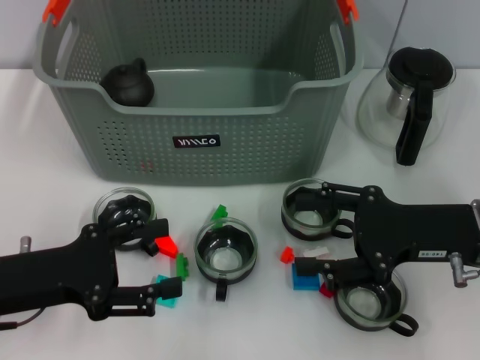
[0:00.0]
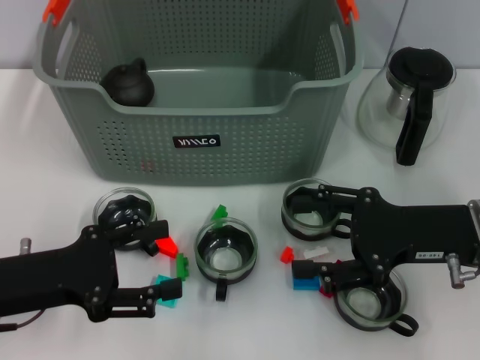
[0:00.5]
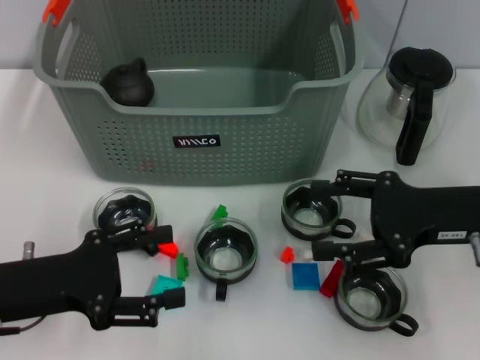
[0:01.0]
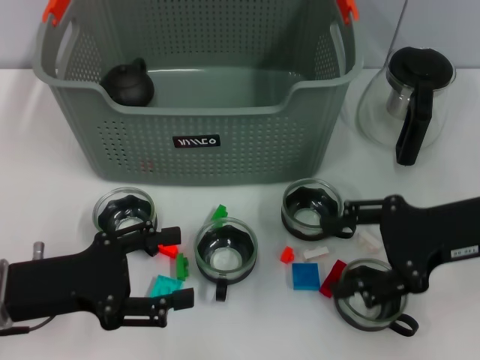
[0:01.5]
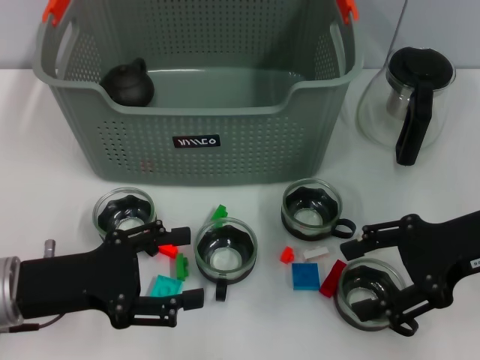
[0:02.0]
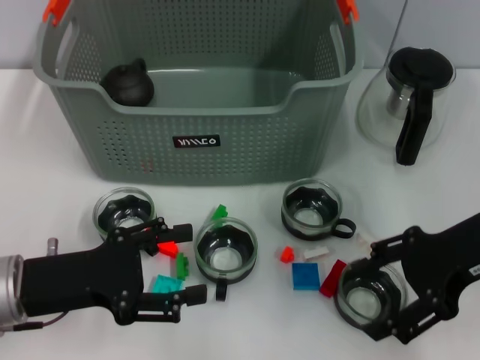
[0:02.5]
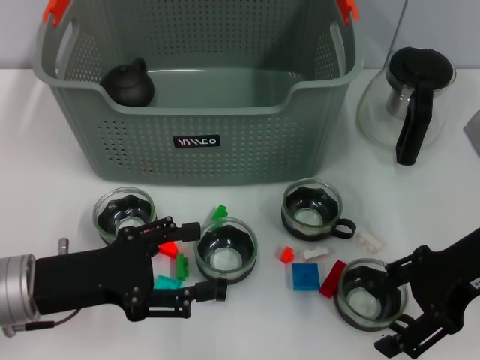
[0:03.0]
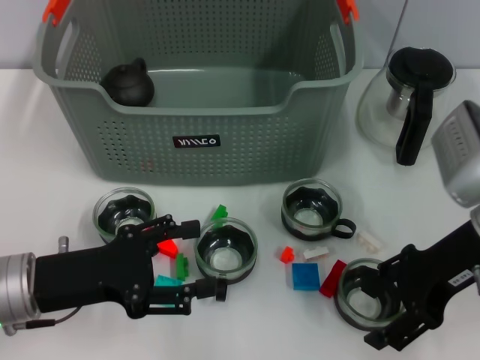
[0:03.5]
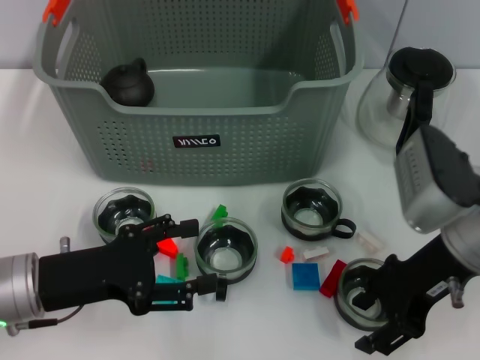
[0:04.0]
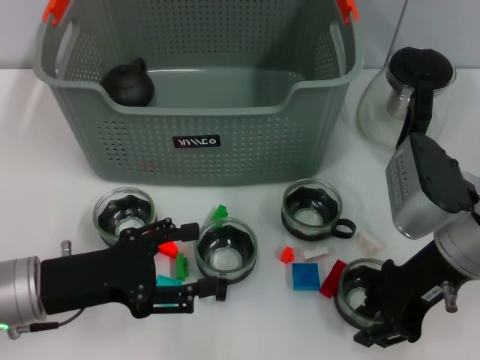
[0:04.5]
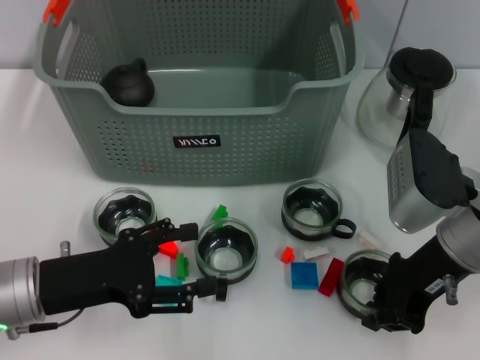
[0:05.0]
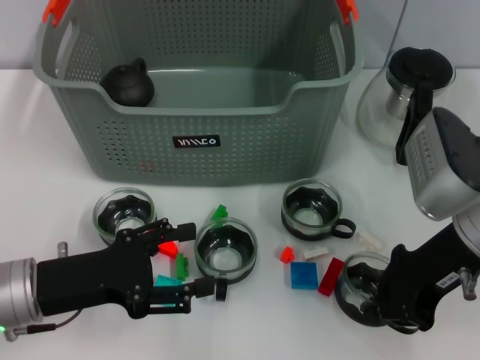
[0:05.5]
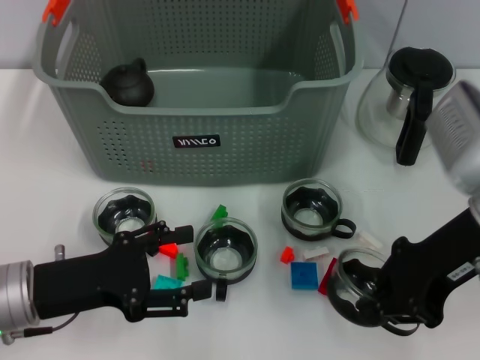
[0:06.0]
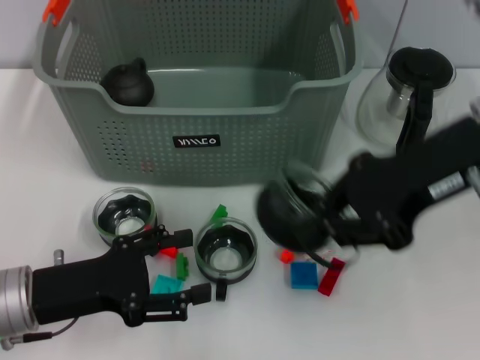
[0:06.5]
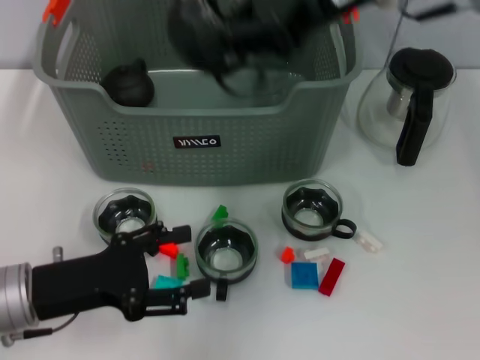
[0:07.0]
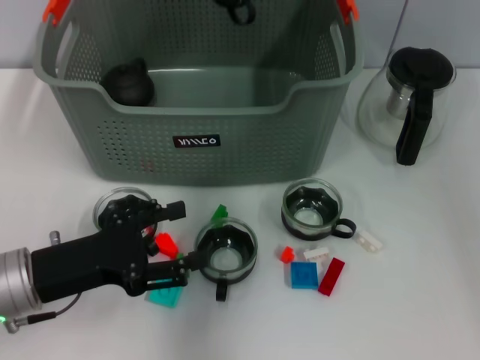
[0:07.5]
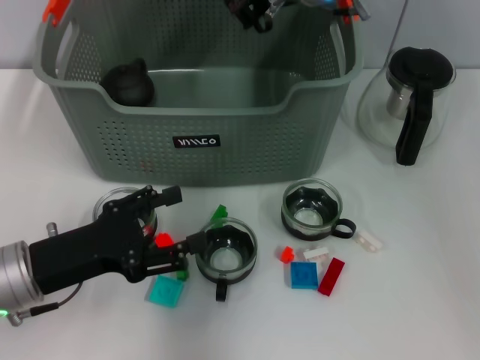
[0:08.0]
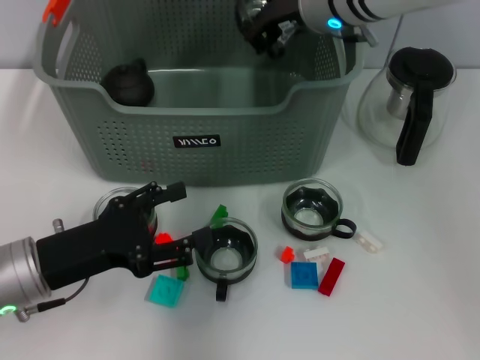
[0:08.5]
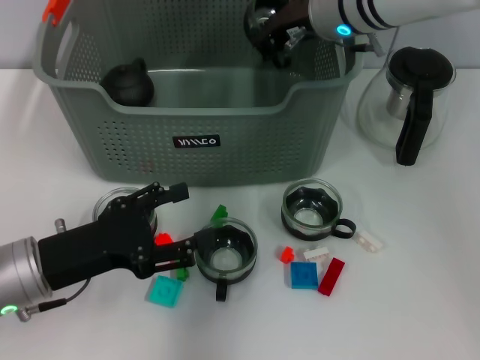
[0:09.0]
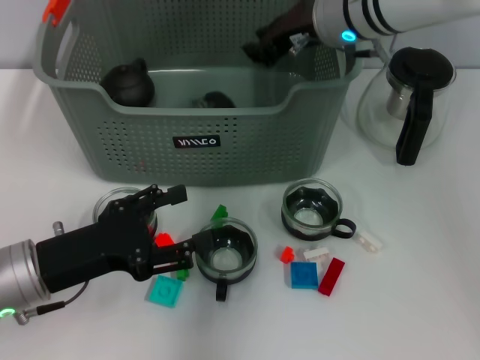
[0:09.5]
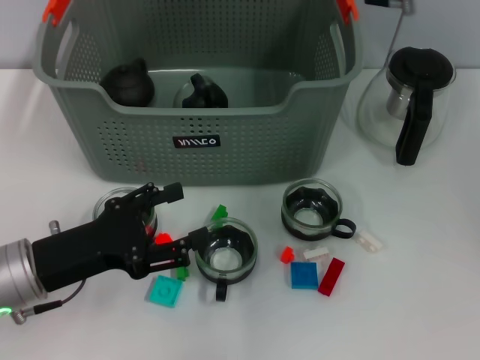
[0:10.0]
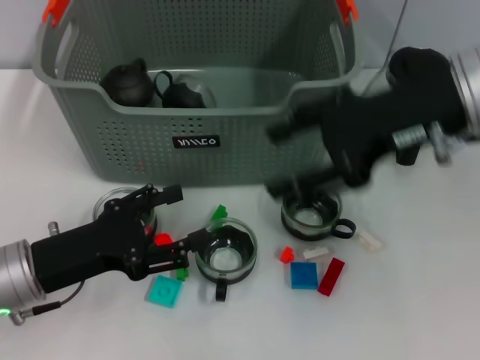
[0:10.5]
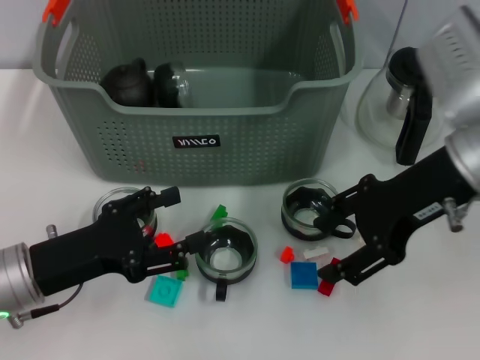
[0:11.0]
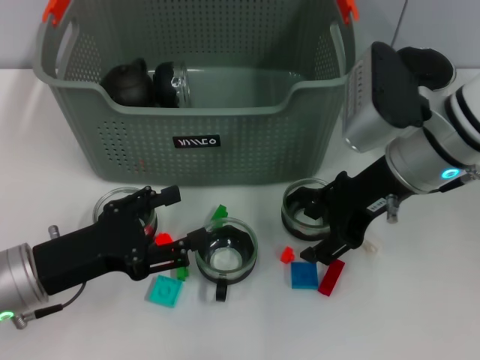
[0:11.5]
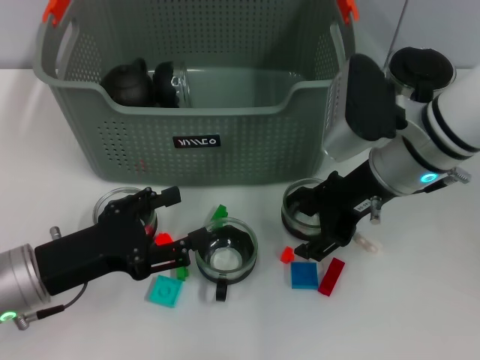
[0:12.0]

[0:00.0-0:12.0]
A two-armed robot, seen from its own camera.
Task of the whole recording: pick up the teacup on the table and place it into the storage bin, pick up the block on the table and place it into the storage bin.
Step, 0:00.0 to 0:04.5: Grasp the cup with right gripper.
Step, 0:05.0 to 0:09.5: Place the cup in the storage box with right gripper.
0:02.0 to 0:04.0: The right gripper travels to the left by some 5 cm.
0:04.0 to 0:06.0: The right gripper closes its fingers.
0:06.0 to 0:08.0: The right gripper moves forward and to the left, approximately 20 cm.
0:08.0 to 0:10.0: The right gripper moves approximately 10 cm, and opens.
0:10.0 to 0:12.0: The right gripper heads downward and backward, covering approximately 15 cm.

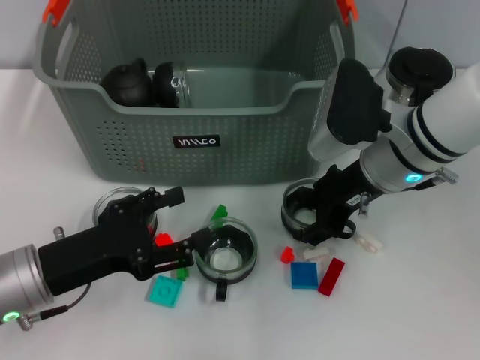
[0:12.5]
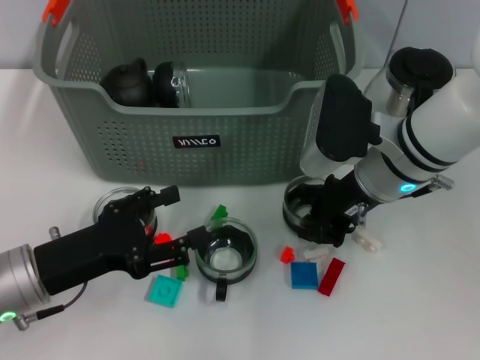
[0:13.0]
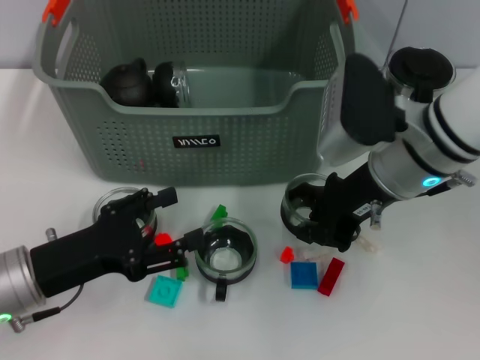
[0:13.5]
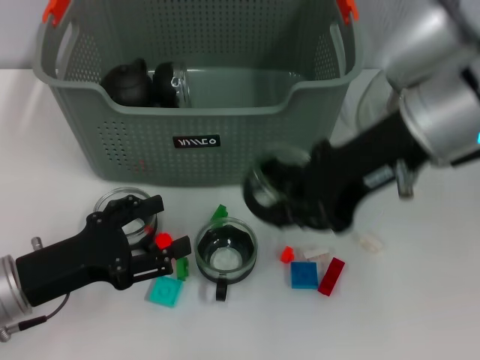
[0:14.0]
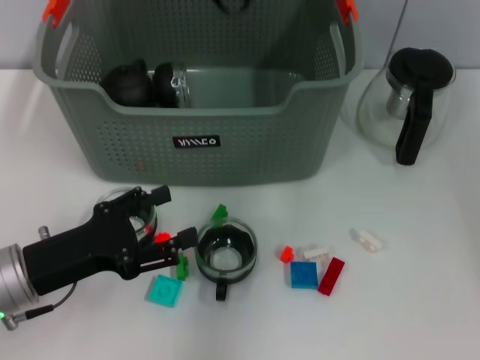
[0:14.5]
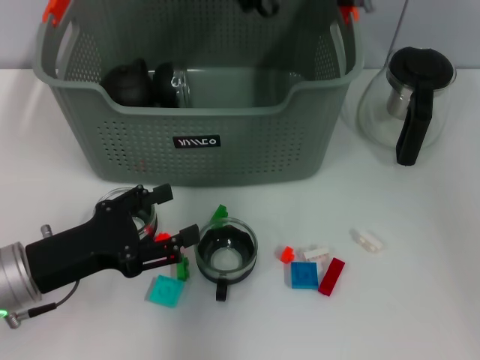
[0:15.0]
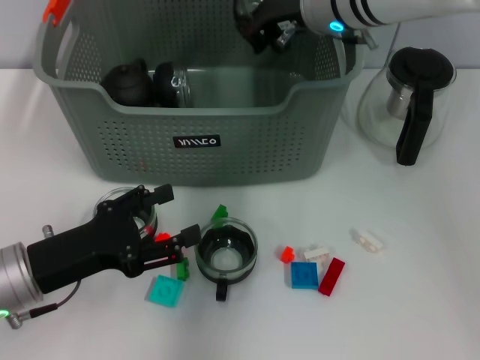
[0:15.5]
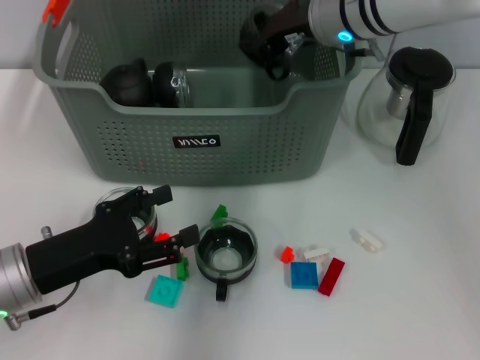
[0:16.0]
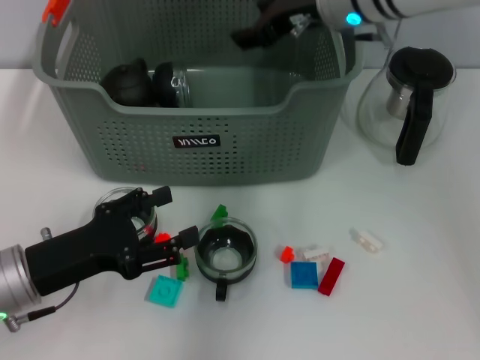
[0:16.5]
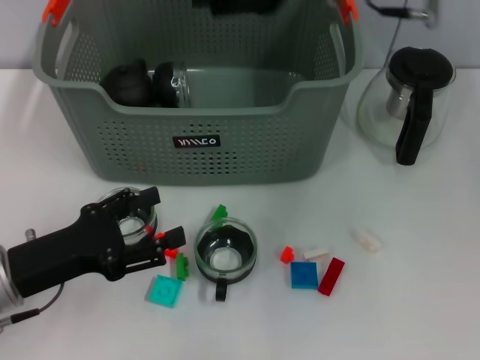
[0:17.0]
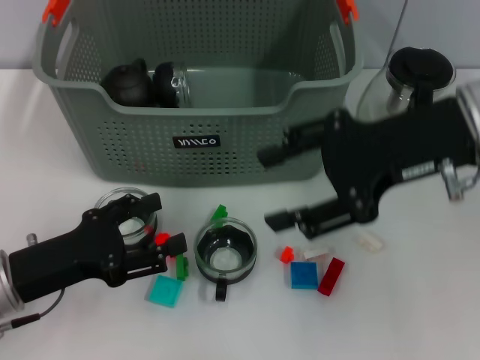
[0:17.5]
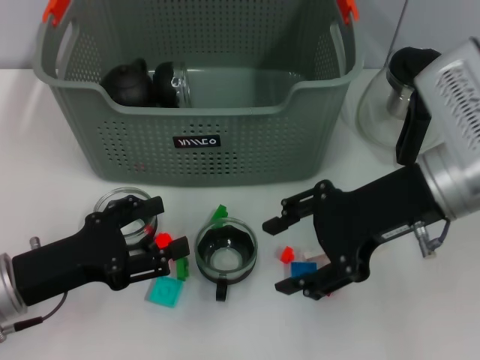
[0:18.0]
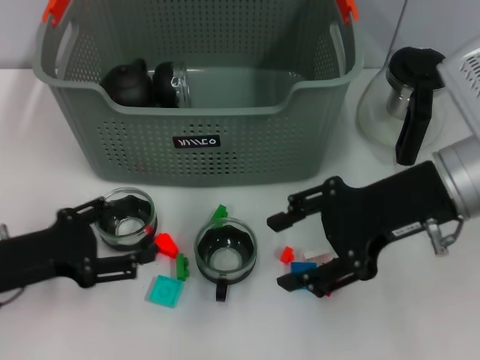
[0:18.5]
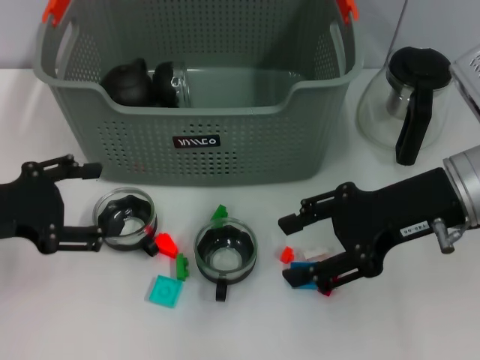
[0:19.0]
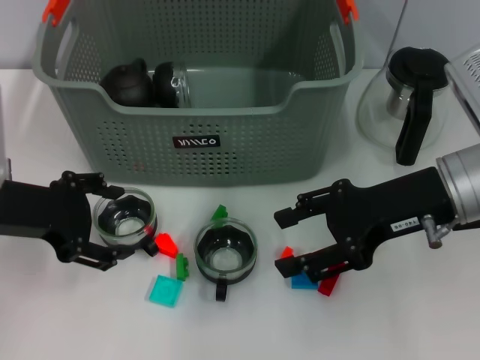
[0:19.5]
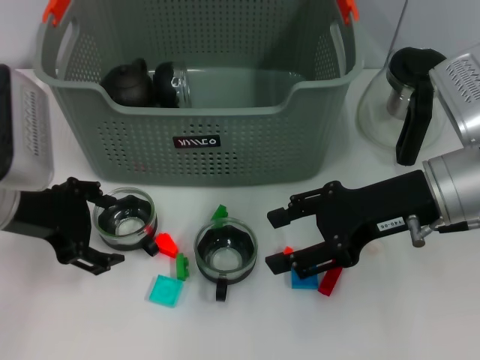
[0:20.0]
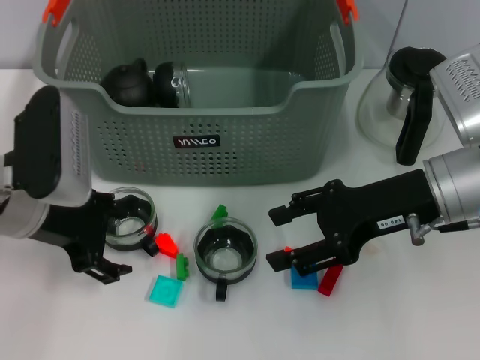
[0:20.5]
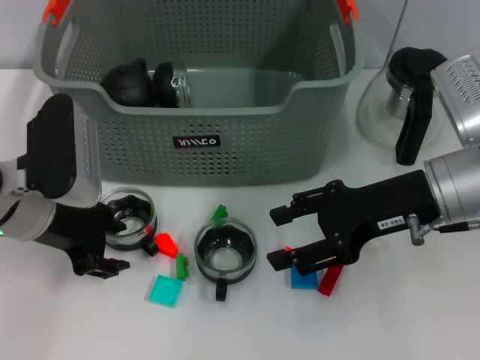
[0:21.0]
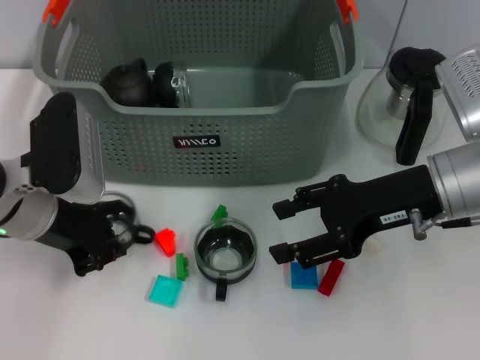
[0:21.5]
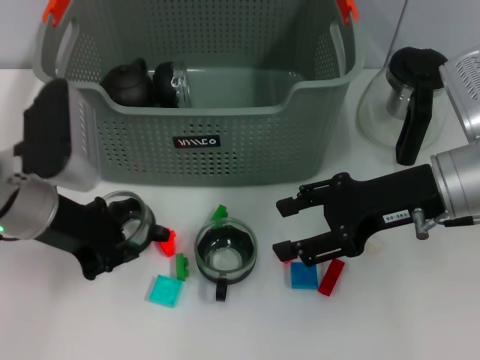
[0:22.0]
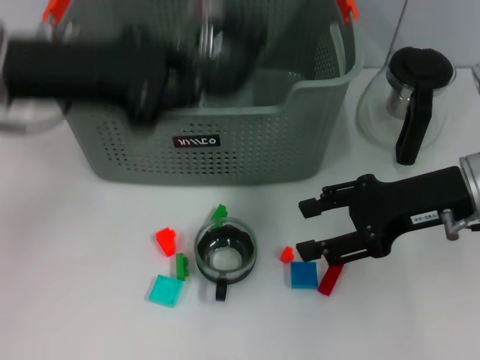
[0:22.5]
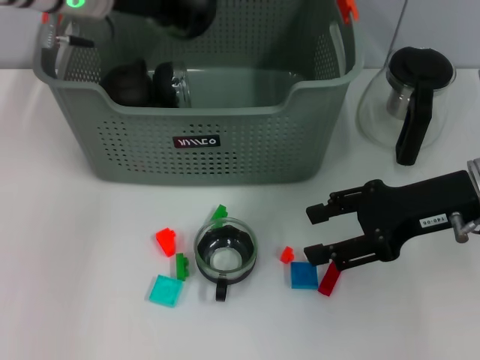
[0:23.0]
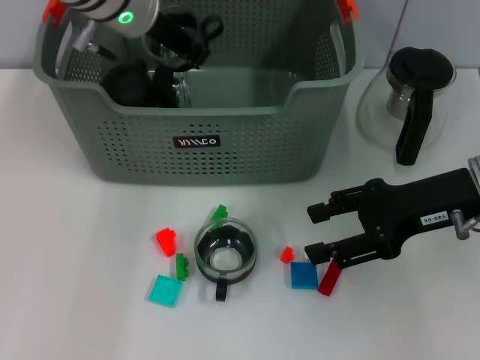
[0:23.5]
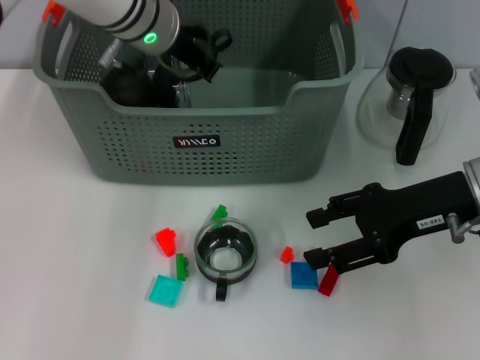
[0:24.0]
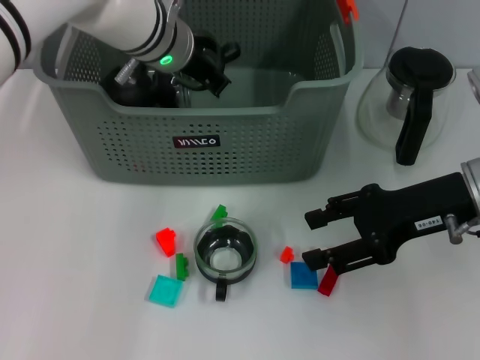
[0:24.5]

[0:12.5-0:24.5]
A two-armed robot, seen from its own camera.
Task of the whole recording: pick up the teacup on the table and place it into the storage bin, pick up the block on the table and place it into the storage bin.
Step, 0:13.5 to 0:16.5: Place the cup in the storage box with right gripper.
Step, 0:17.0 to 0:21.5: Grasp the cup with left gripper.
0:12.5 to 0:14.5: The right gripper travels upward by roughly 20 cm, and closes its fingers.
0:14.5 to 0:16.5: The right gripper travels downward by some 10 cm, and opens up.
0:16.5 to 0:18.5: The right gripper travels backward and to the right by roughly 15 cm.
0:18.5 to 0:20.5: The left gripper goes approximately 10 cm forward, upward and to the right.
0:20.5 to 0:22.5: The left gripper moves upward, some 10 cm, and closes.
0:22.5 to 0:24.5: The left gripper goes some 20 cm forward, to the right and downward.

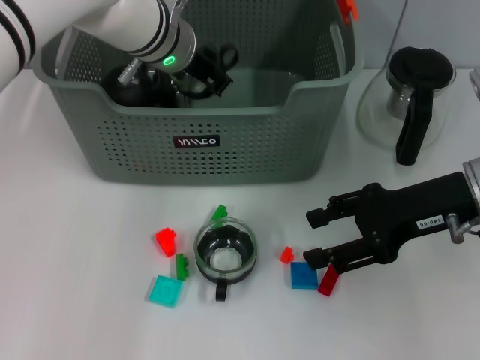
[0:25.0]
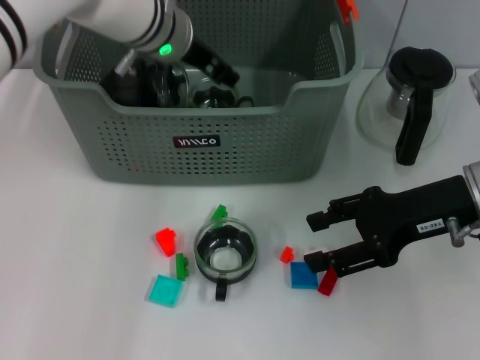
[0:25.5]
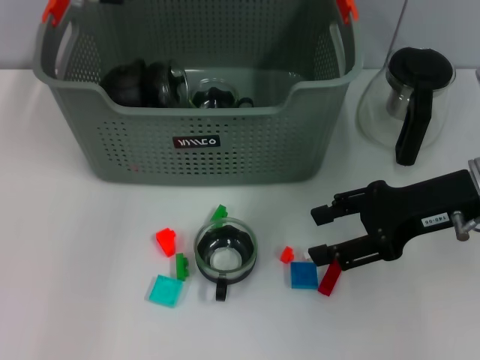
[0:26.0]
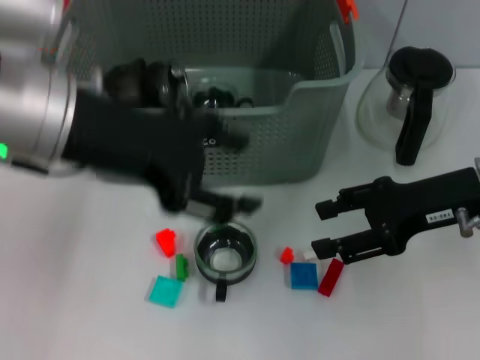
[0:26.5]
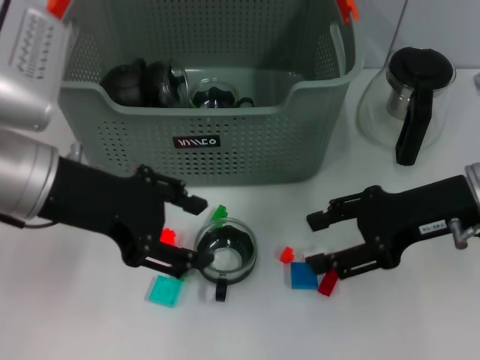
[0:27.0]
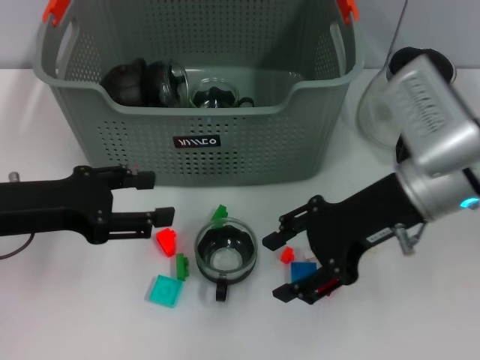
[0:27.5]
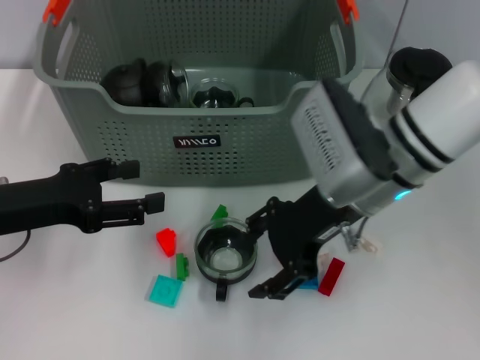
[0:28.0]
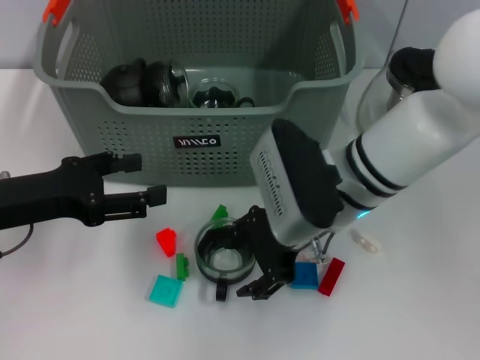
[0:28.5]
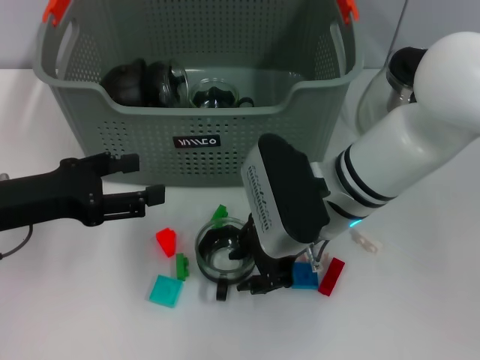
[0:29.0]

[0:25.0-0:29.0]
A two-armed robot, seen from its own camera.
Task of the whole recording: pick up the teacup on the table and place it into the storage bin, pick up the block on the table and place it into the storage bin.
0:25.0 to 0:27.0: The left gripper moves backward and to the left, approximately 20 cm, and opens.
0:27.0 to 0:29.0: The right gripper is displaced to the left by about 15 cm; the left gripper is displaced downward and to the left by about 10 cm.
